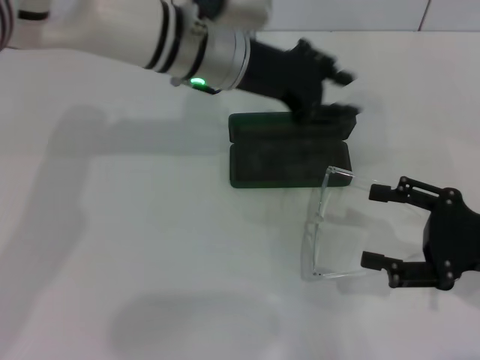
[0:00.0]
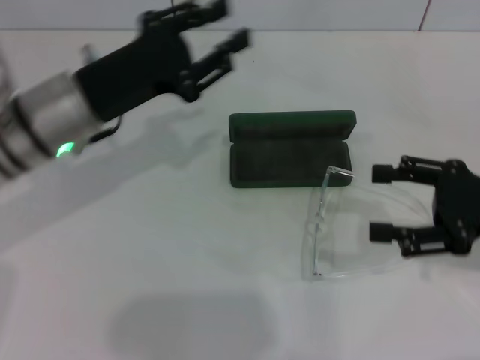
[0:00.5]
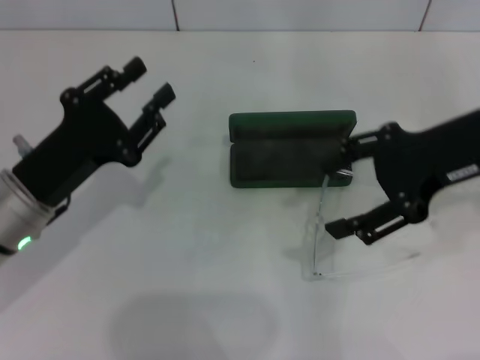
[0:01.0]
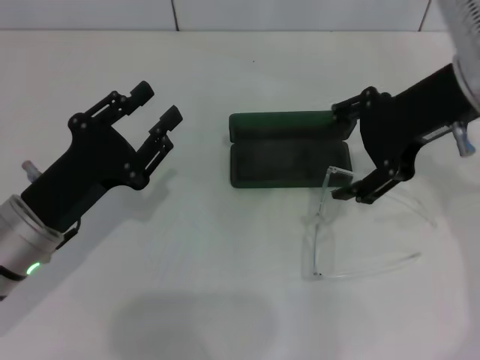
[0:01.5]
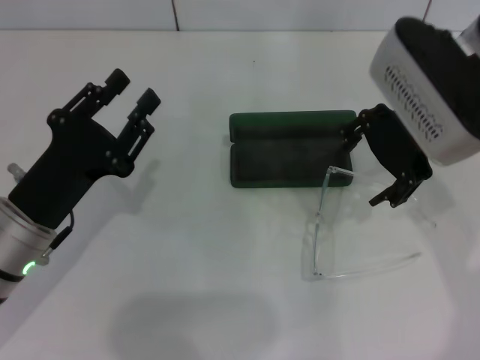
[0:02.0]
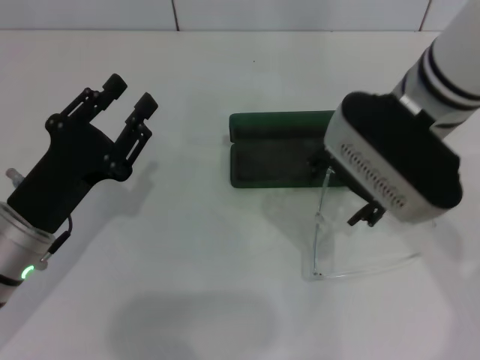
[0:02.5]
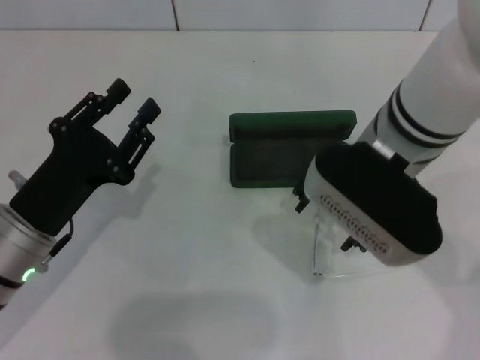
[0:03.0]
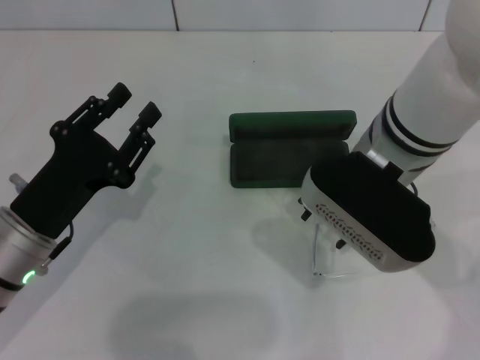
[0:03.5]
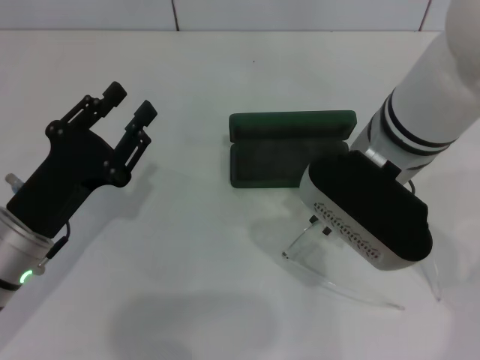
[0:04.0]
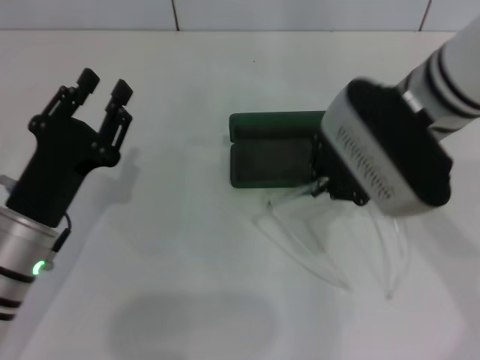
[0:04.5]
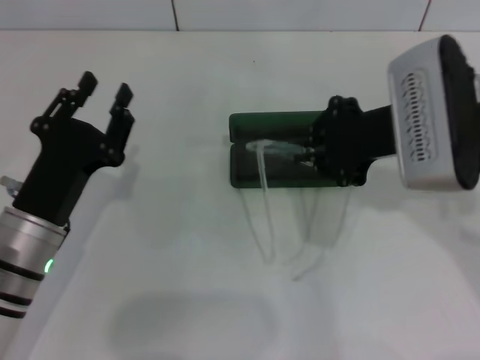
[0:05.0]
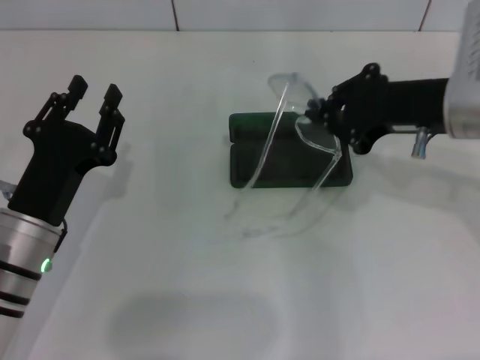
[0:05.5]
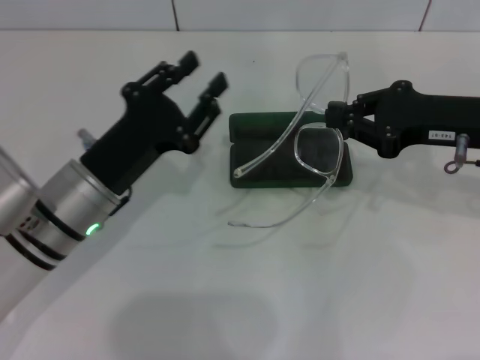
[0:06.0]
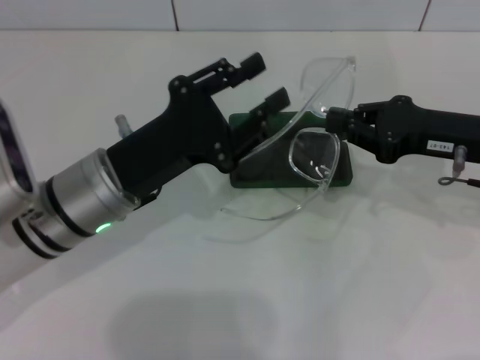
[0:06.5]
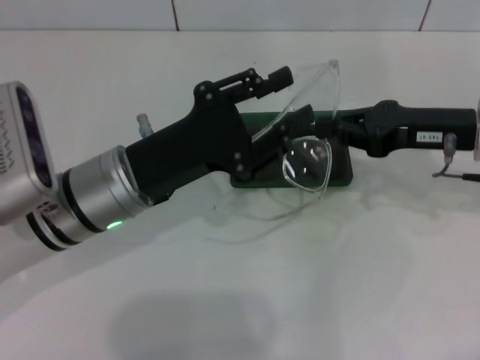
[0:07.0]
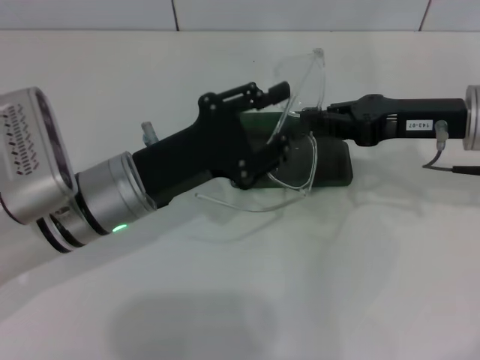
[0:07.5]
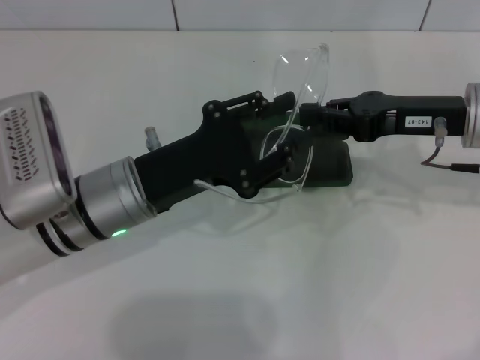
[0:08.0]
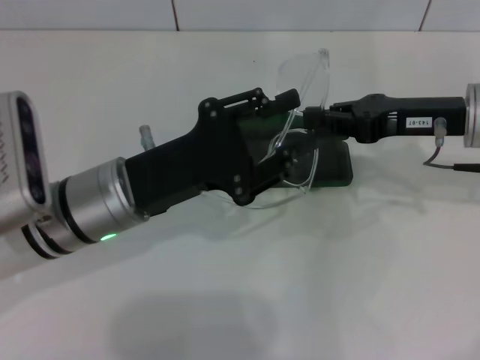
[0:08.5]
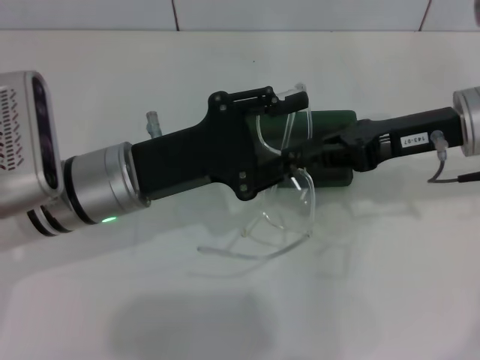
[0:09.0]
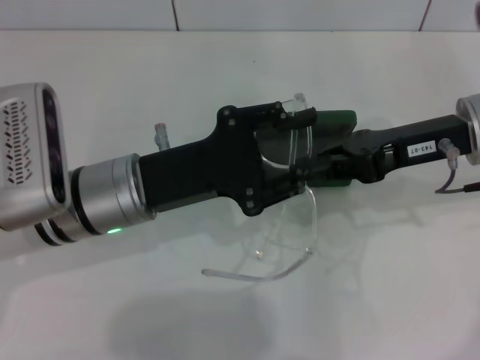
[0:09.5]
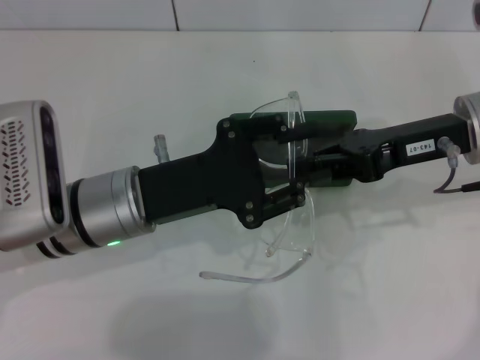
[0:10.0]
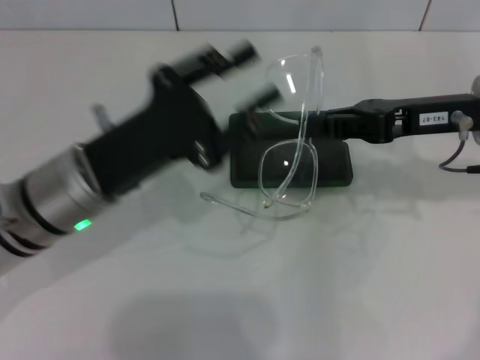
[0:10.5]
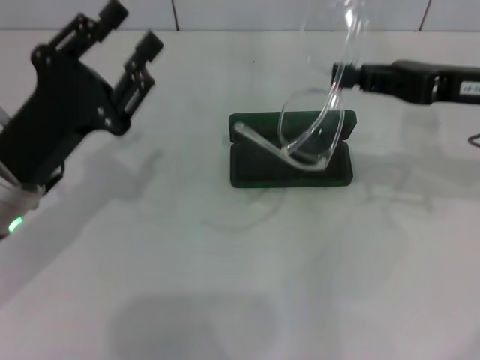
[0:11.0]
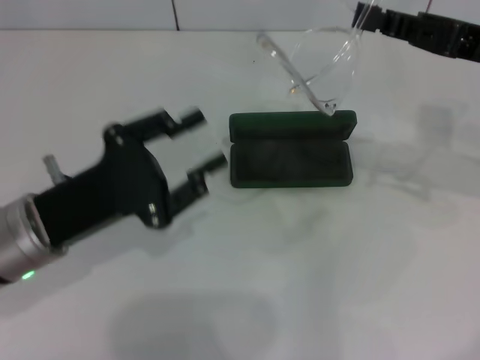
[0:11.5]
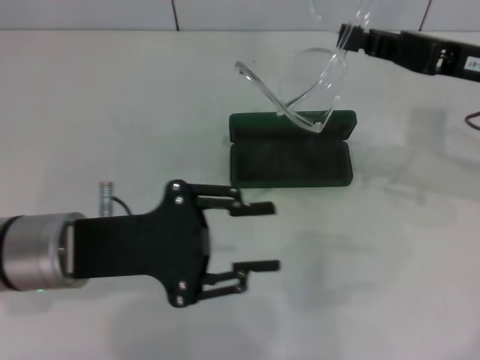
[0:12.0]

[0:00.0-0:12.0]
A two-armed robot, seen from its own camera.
Step, 0:00.0 to 0:04.0: Grab the eyeglass frame with your right hand.
0:00.0 to 0:02.0: The left gripper travels backward, to the left and downward by roughly 25 cm; the right gripper heads upward, to the left and forward, covering some 25 cm.
0:02.0 to 0:04.0: The right gripper travels to the left by approximately 5 cm, and closes up.
0:04.0 to 0:06.0: The left gripper heads to the right, covering roughly 5 cm. Meanwhile the right gripper heads to the right, covering roughly 15 cm.
0:08.0 to 0:10.0: There are only small adjustments of the grippers.
0:10.0 to 0:12.0: The left gripper moves some 5 cm.

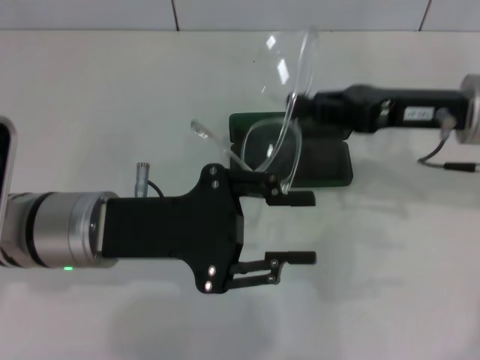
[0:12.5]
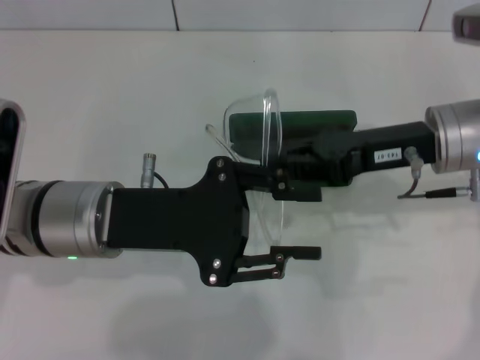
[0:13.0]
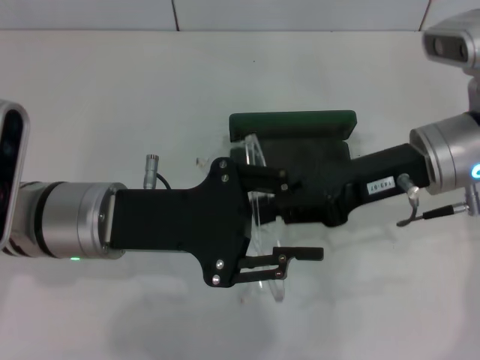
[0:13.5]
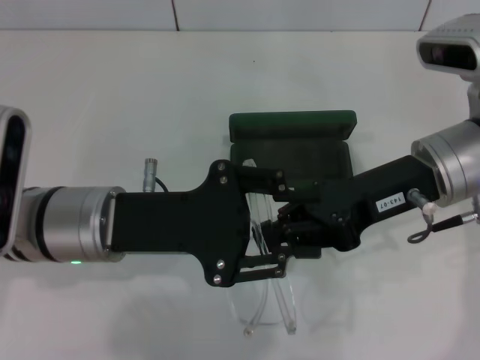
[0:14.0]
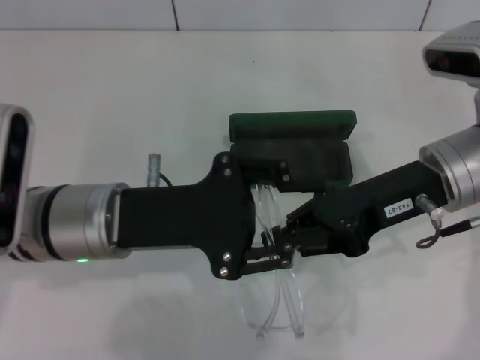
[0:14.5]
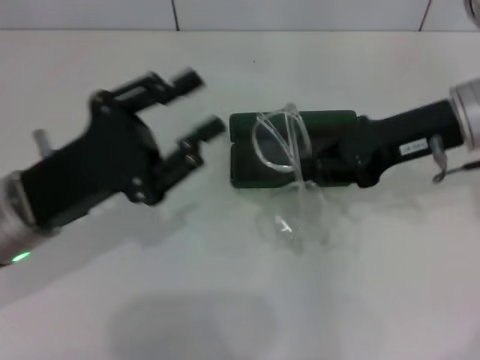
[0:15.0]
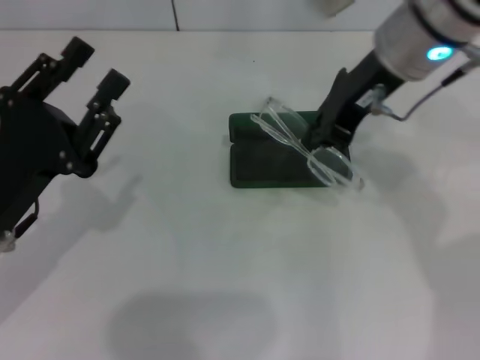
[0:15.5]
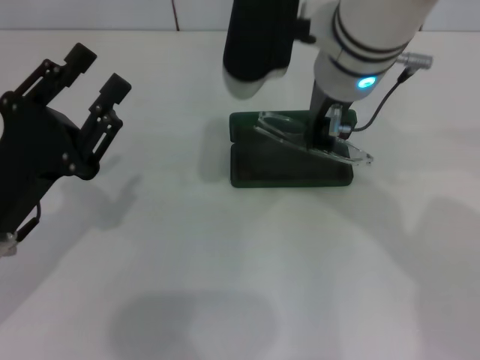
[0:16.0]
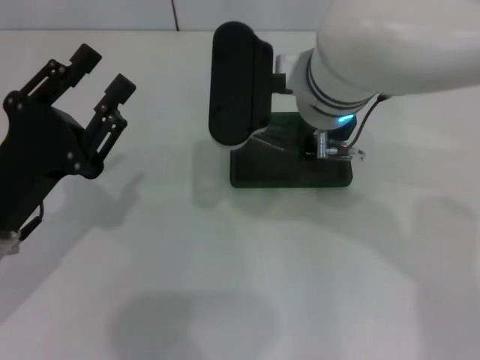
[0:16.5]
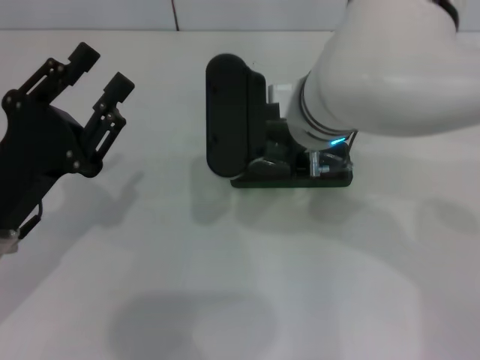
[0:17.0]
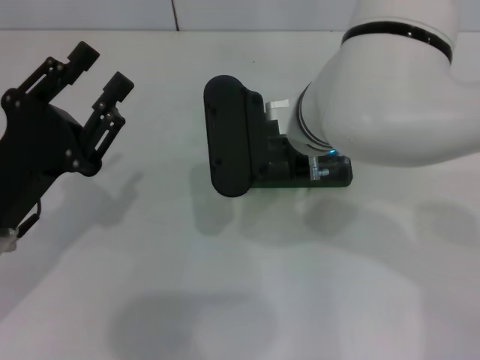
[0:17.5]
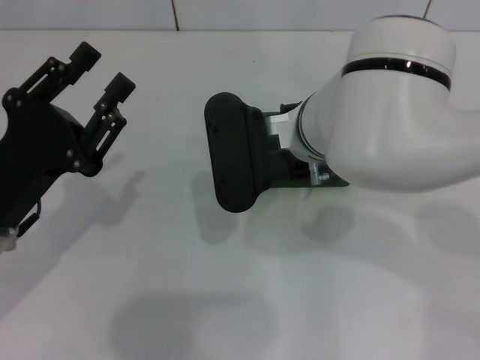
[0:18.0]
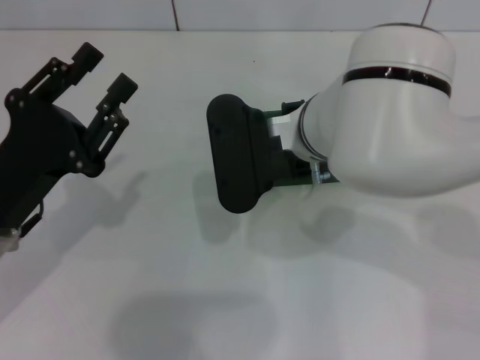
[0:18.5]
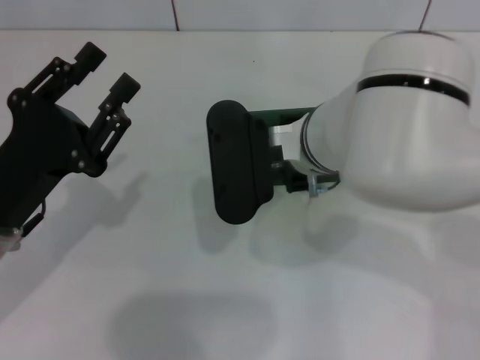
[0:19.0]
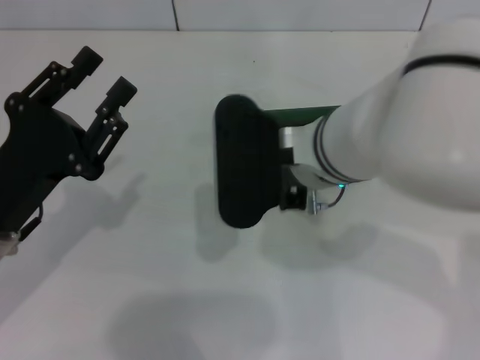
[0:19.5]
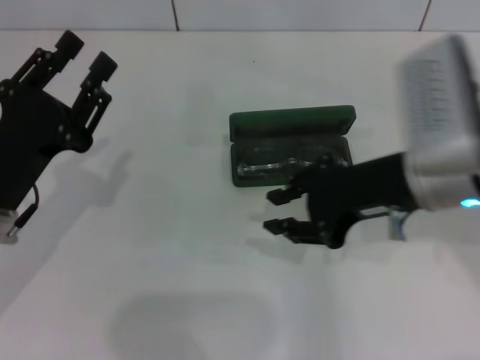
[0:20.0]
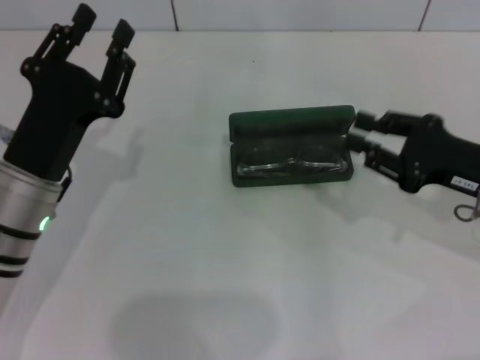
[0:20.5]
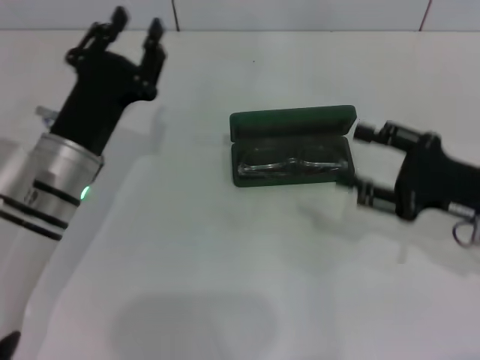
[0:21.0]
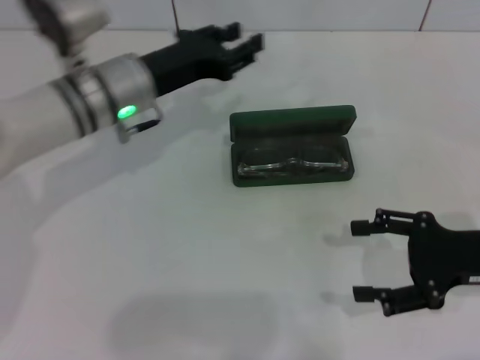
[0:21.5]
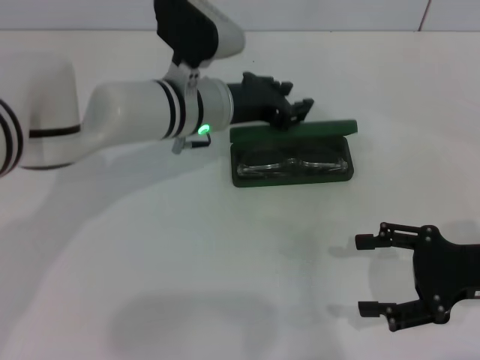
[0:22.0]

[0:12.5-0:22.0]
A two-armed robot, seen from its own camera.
Step, 0:14.5 to 0:18.5: Put the glasses into the case with your right hand.
0:14.5 to 0:16.5: The left gripper shifts about 10 cm to the left; the right gripper moves to the left, some 15 cm.
0:16.5 to 0:18.0: The grippers move only a little.
0:18.0 to 0:20.0: The right gripper goes approximately 15 cm to the right.
0:20.0 to 0:22.0: The left gripper shifts about 25 cm to the right and forward. Meanwhile the right gripper travels to the right and downward by approximately 15 cm, and opens its fingers.

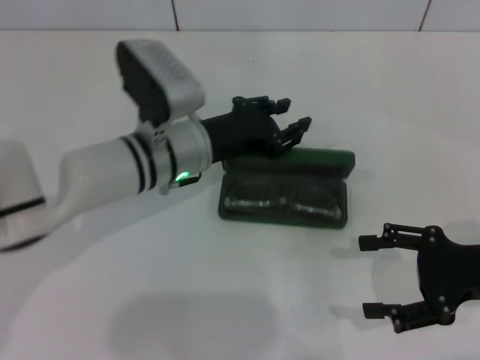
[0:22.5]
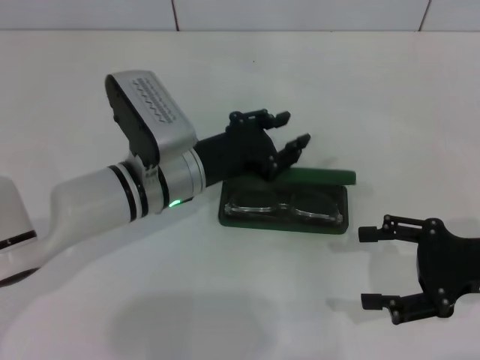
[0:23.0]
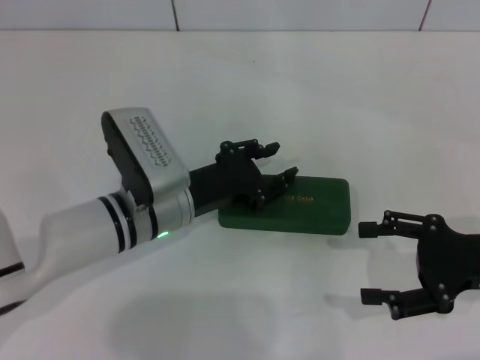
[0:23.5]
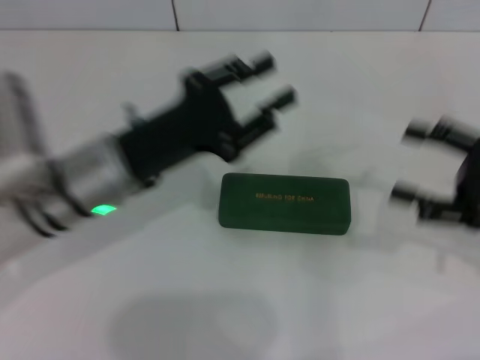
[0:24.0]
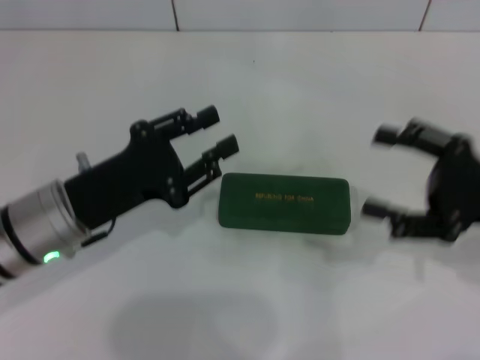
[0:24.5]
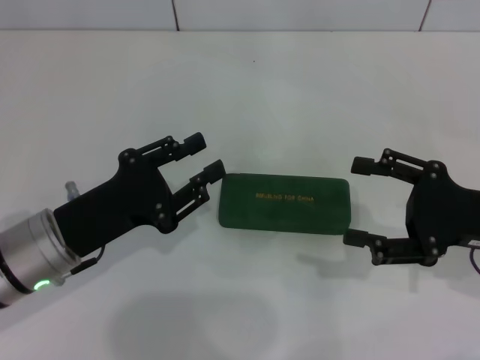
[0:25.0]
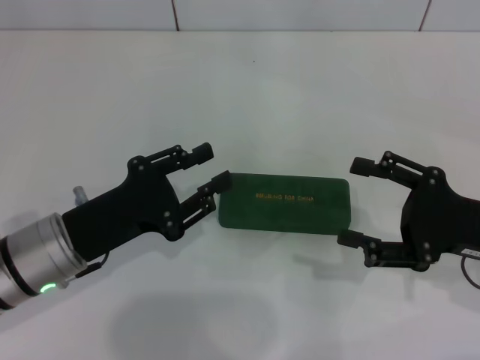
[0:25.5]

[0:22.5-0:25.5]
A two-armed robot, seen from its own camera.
0:22.5 to 0:24.0: The left gripper moves backward and to the left, about 10 cm.
0:24.0 to 0:25.5: The left gripper shifts some 10 cm to the left and backward.

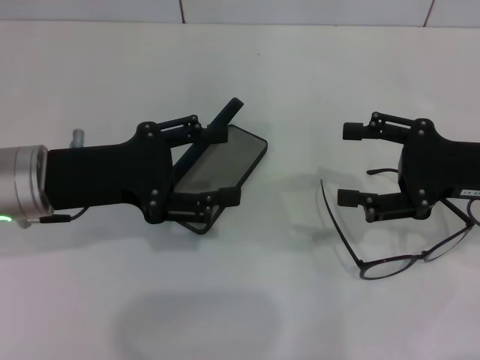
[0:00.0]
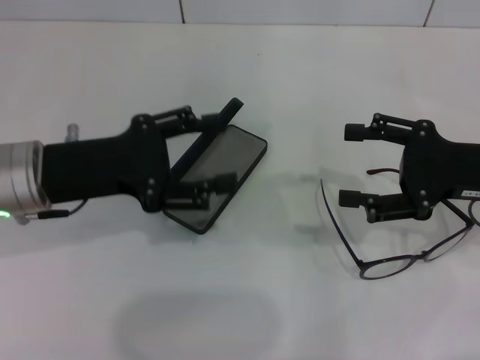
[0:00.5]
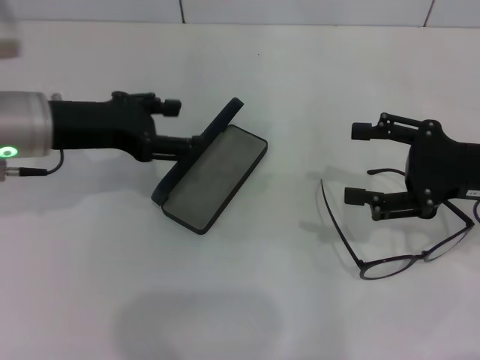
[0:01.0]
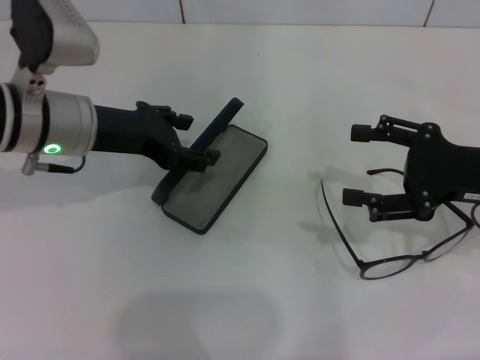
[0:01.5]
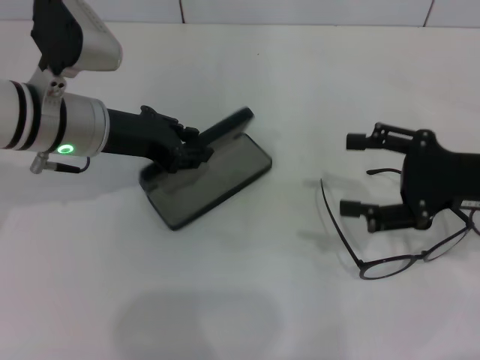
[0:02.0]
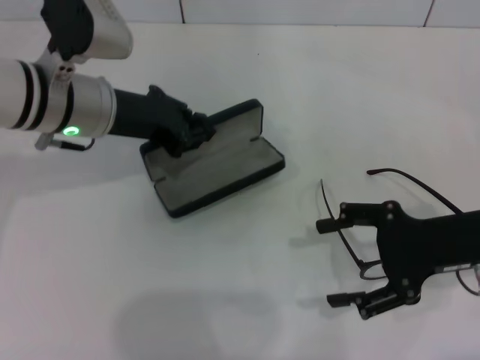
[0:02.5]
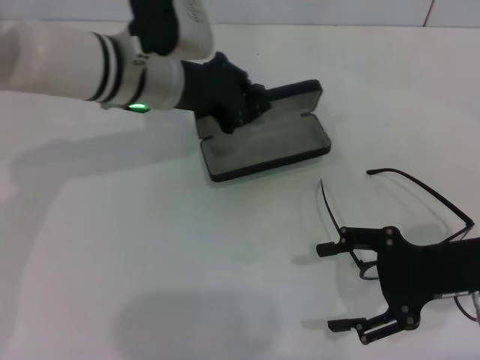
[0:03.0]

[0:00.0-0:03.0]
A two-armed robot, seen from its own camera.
Step, 0:00.0 to 0:01.5: Grab the glasses case with your left hand.
0:00.0 to 0:01.5: The left gripper heads forward, covering roughly 5 cm.
0:01.5 to 0:03.0: The left gripper is displaced to the right by roughly 10 cm, and closes up. The right gripper ends up approximately 5 cm from where it was.
